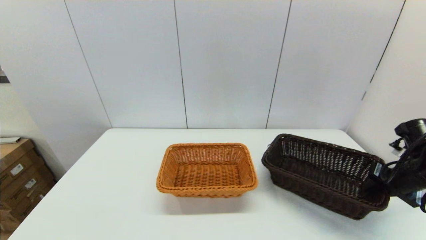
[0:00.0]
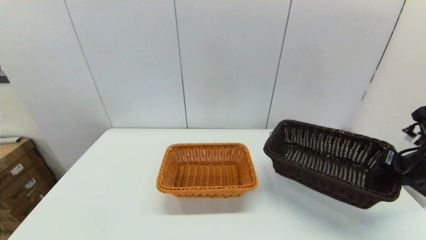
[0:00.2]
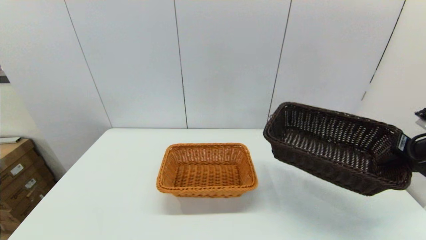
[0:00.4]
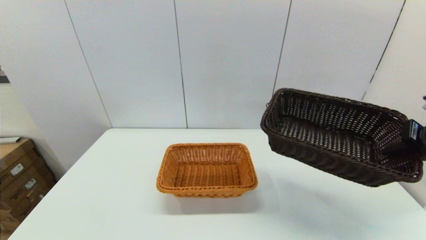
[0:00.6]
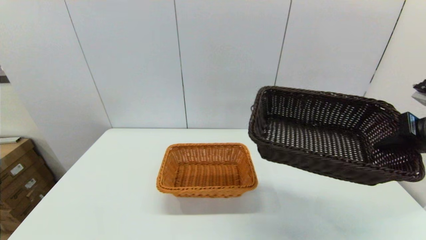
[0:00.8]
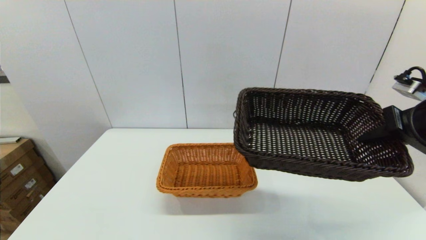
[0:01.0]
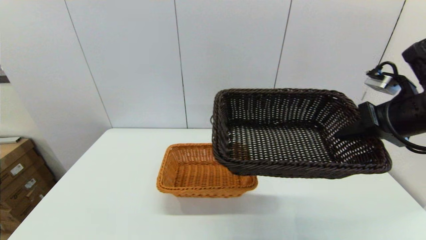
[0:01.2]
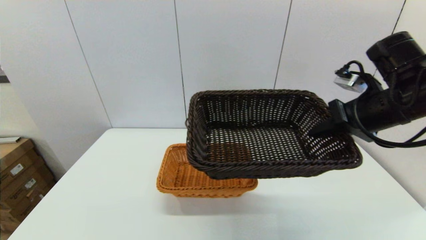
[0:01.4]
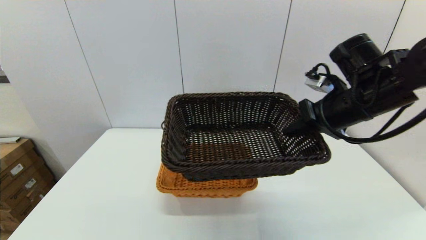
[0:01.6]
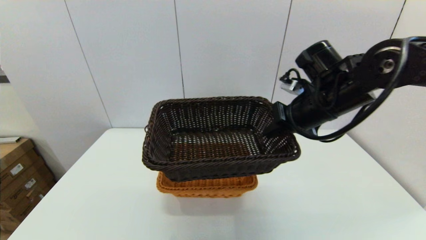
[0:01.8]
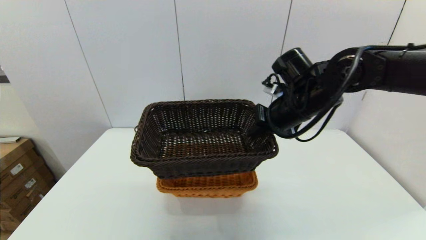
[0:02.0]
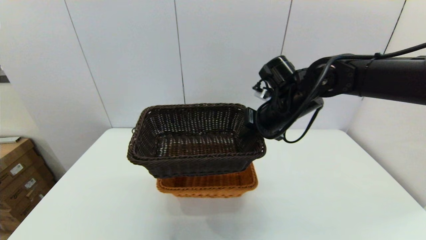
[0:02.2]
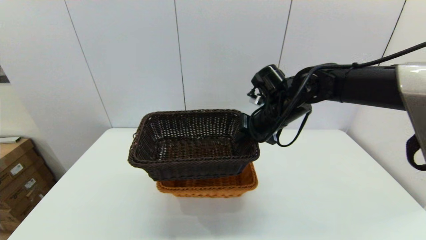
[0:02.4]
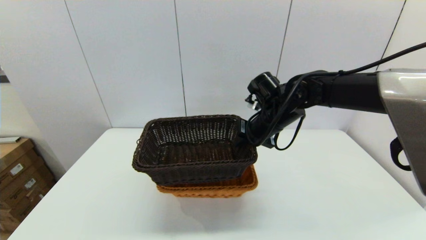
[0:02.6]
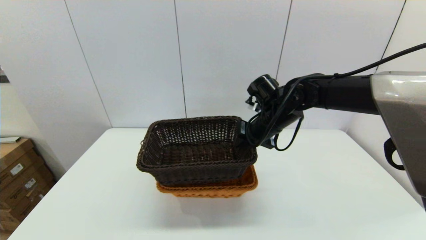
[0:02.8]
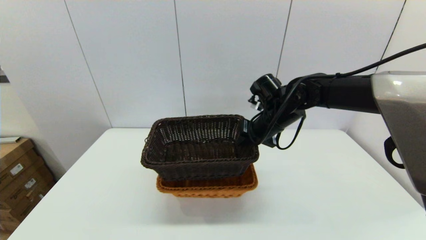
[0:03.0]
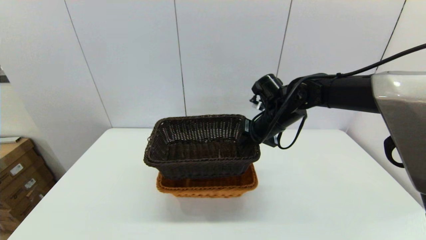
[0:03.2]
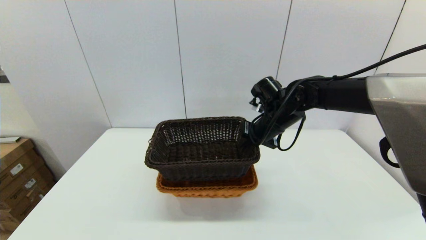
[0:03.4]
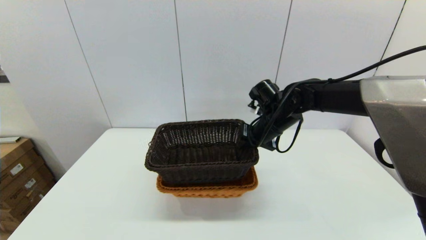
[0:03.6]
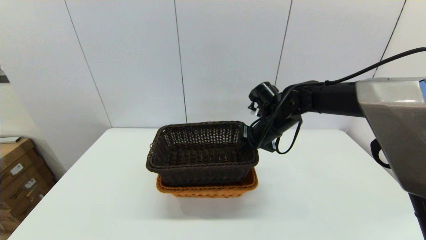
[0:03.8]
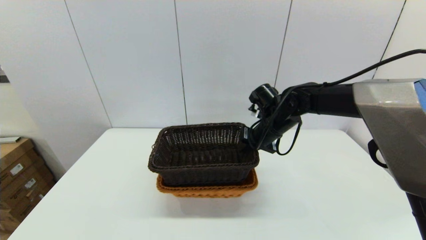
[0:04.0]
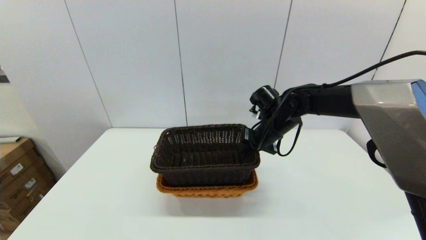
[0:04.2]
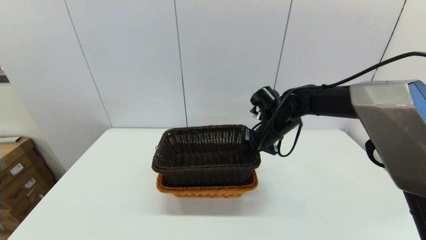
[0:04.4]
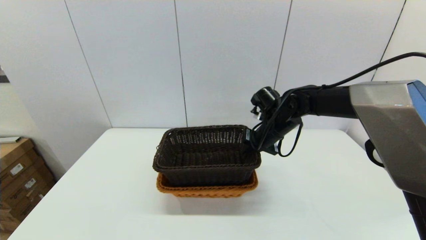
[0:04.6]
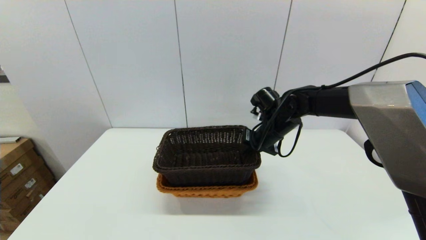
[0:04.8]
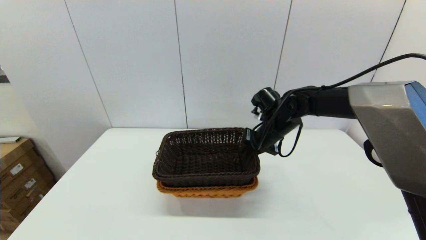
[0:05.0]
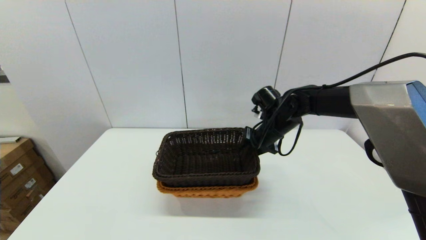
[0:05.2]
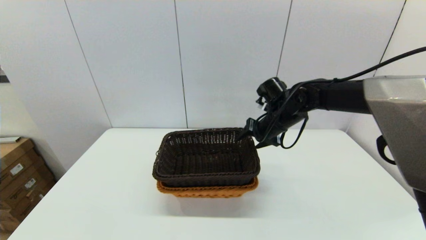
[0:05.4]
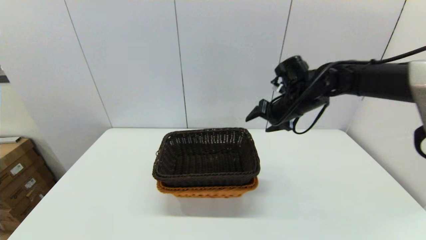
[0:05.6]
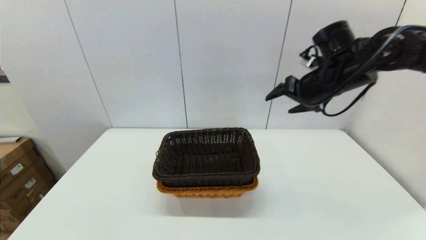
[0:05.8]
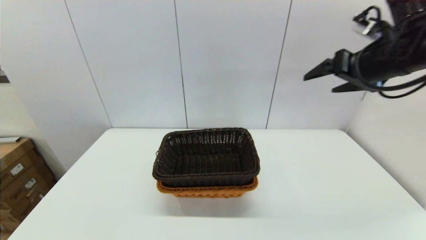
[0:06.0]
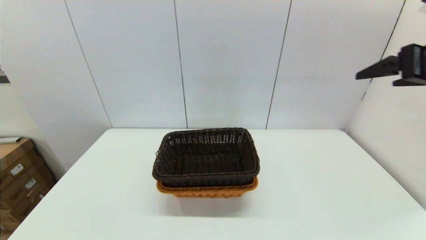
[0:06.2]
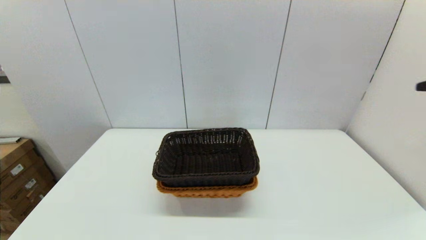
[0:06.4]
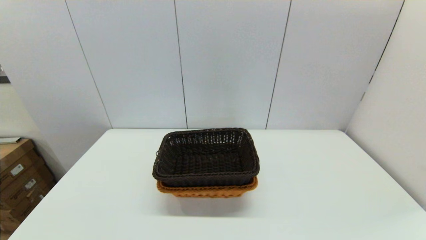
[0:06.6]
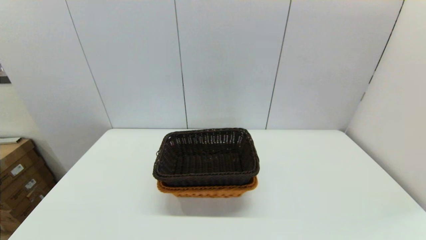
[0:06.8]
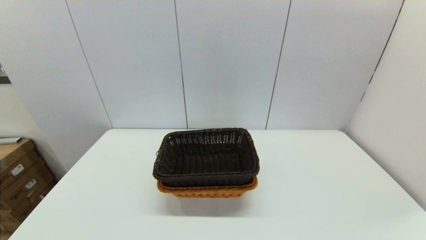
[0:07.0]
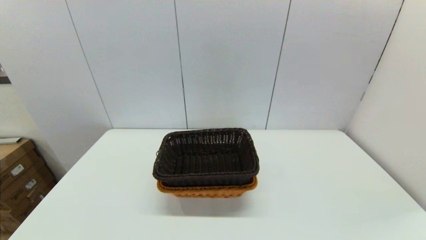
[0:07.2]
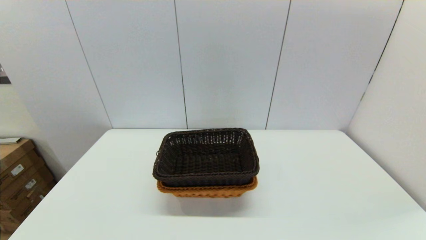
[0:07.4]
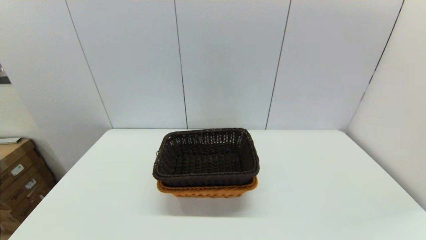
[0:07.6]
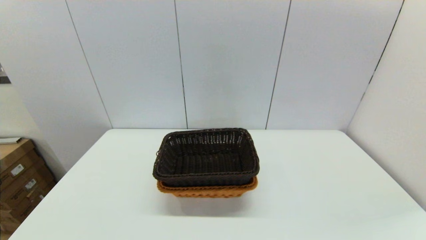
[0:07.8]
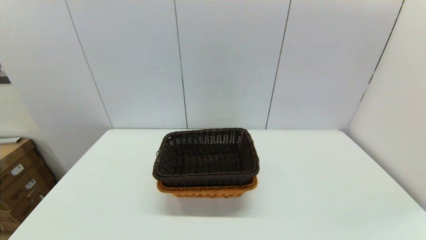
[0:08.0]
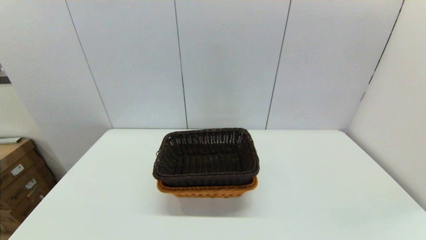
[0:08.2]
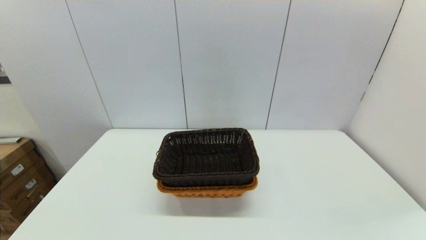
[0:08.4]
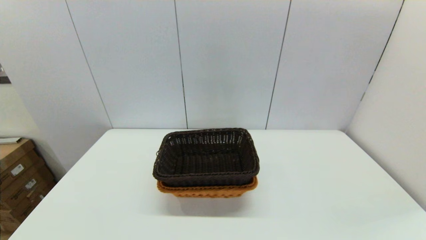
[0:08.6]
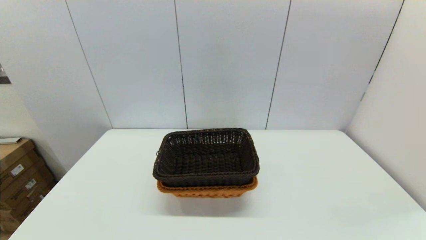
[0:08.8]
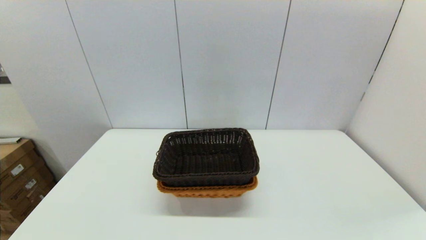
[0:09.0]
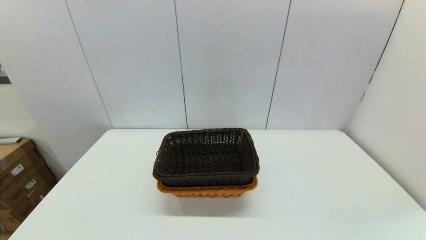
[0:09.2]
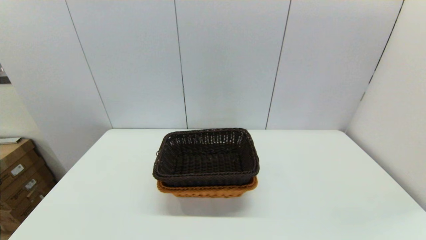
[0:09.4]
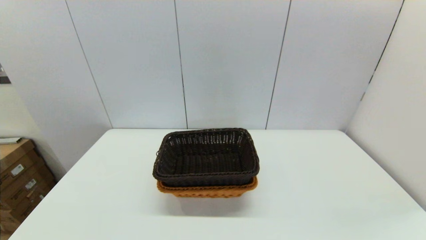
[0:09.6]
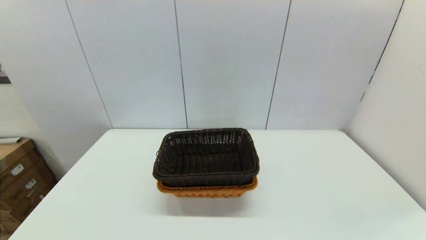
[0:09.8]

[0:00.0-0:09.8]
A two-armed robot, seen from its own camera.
Task of the whole recording: stack a basket on top of another basket.
Step, 0.0 to 5.6 s: Place the dark basket into the light color basket with the right gripper.
0.0 to 1.4 s: The right gripper is displaced upward and to the left by some 20 cm.
1.4 to 2.8 s: The right gripper is displaced to the left, forward and downward by approximately 20 cm.
2.8 to 4.2 s: The grippers move only a little.
4.2 to 5.6 s: The right gripper shifts approximately 5 cm upward, and opens up.
5.6 to 7.0 s: The right gripper heads backward, covering approximately 50 cm.
8.4 to 9.8 s: The two grippers keep their place.

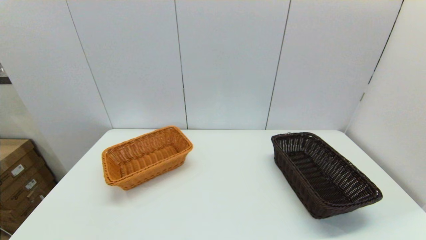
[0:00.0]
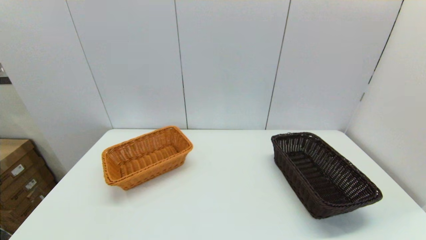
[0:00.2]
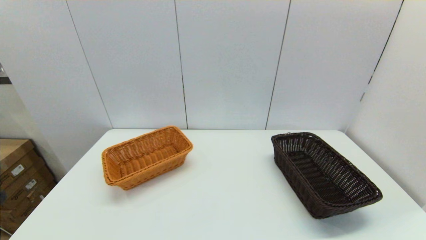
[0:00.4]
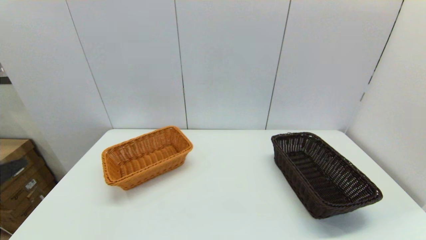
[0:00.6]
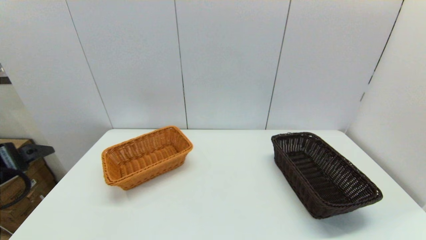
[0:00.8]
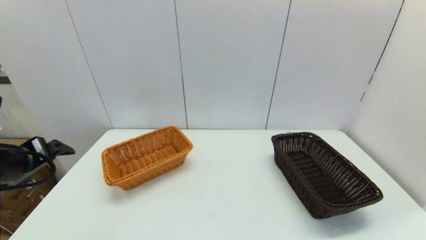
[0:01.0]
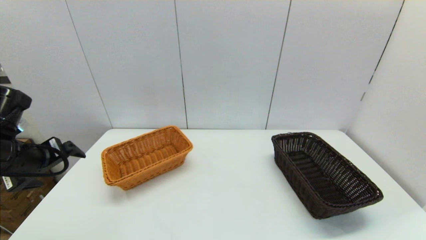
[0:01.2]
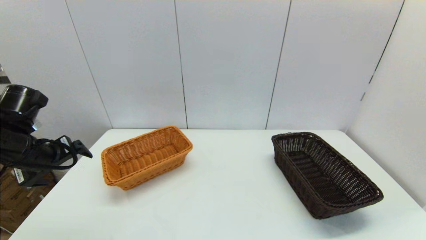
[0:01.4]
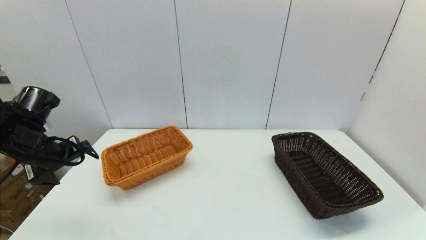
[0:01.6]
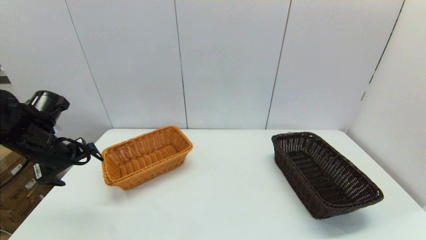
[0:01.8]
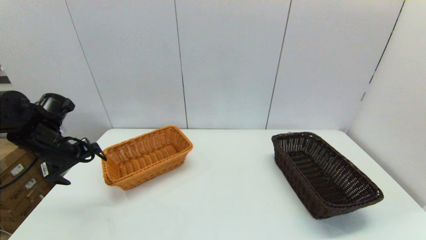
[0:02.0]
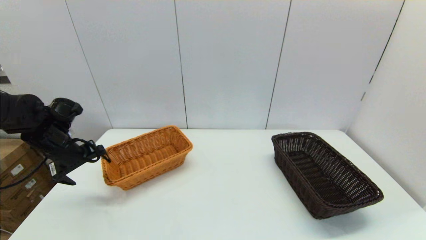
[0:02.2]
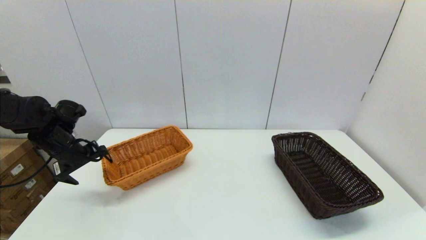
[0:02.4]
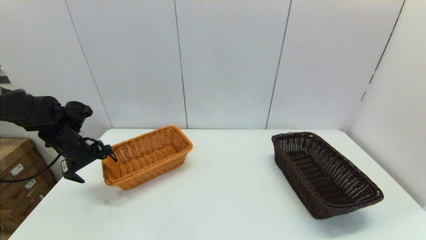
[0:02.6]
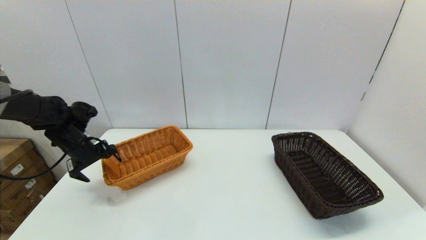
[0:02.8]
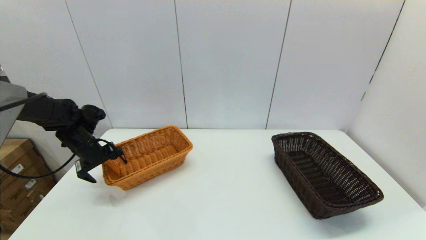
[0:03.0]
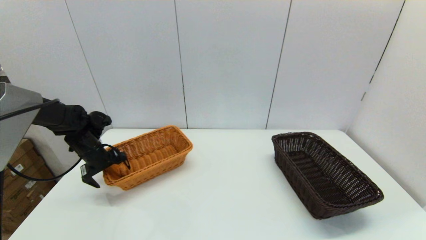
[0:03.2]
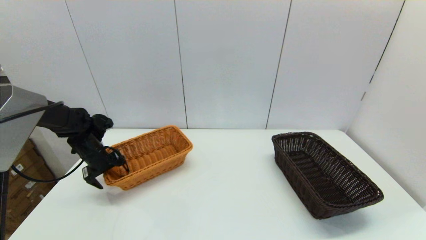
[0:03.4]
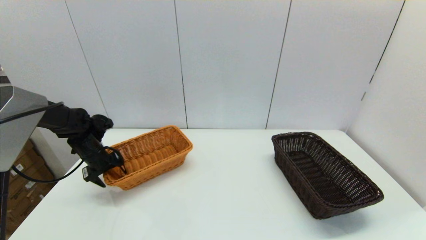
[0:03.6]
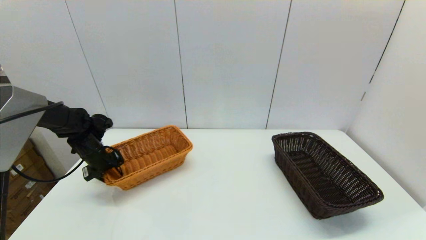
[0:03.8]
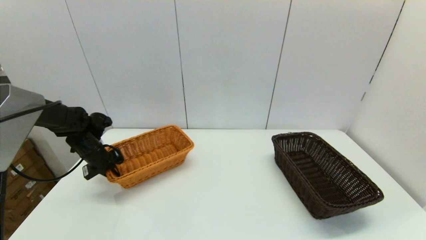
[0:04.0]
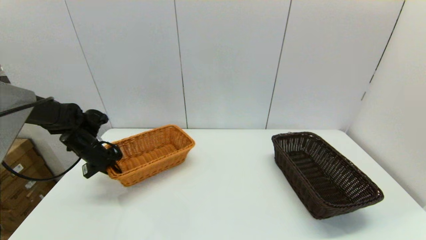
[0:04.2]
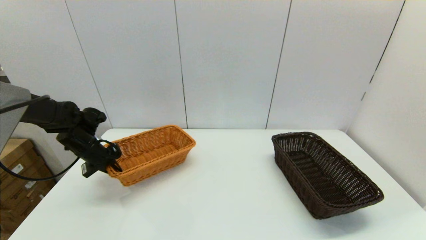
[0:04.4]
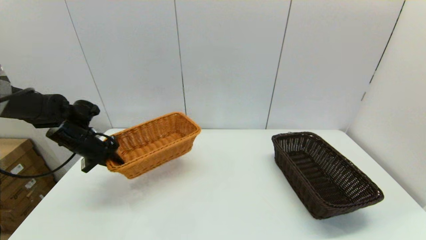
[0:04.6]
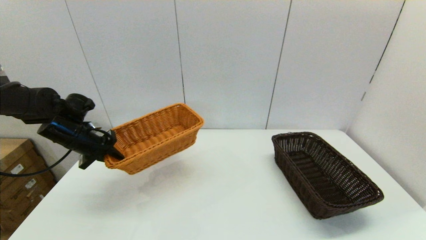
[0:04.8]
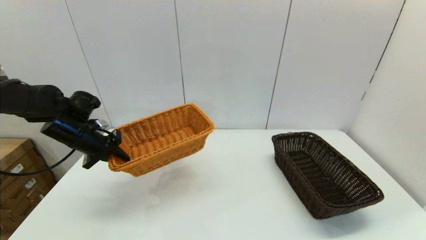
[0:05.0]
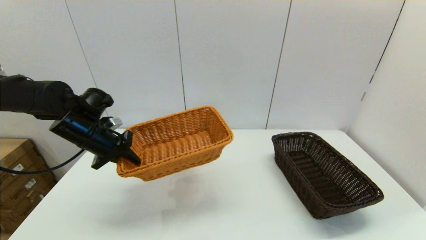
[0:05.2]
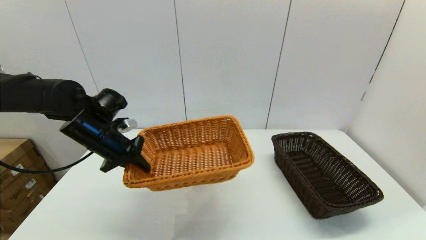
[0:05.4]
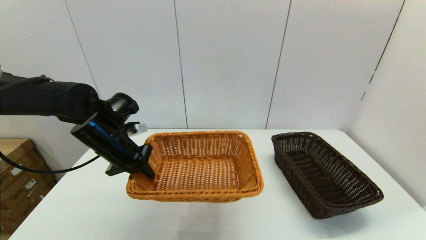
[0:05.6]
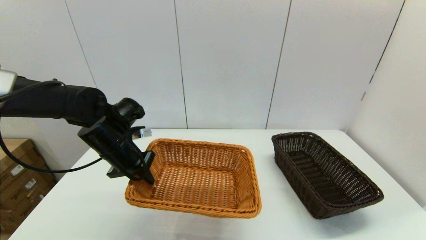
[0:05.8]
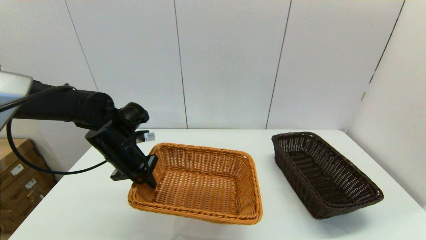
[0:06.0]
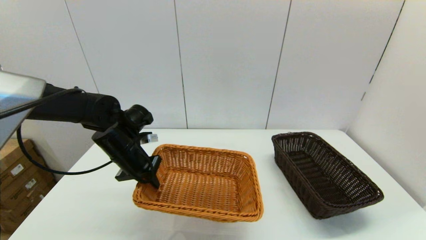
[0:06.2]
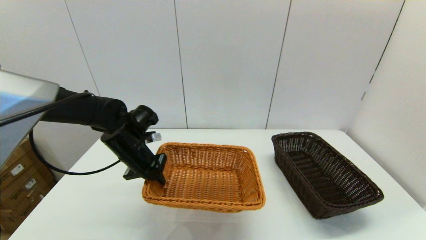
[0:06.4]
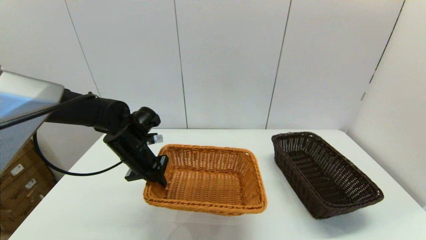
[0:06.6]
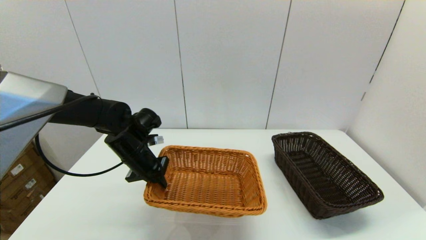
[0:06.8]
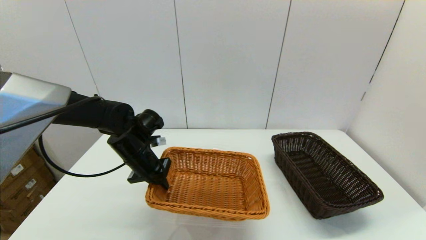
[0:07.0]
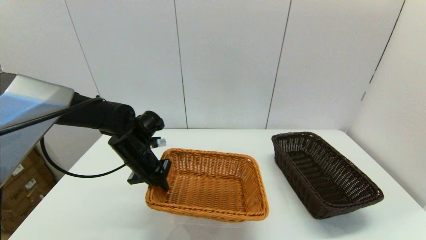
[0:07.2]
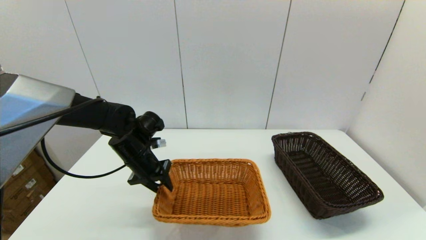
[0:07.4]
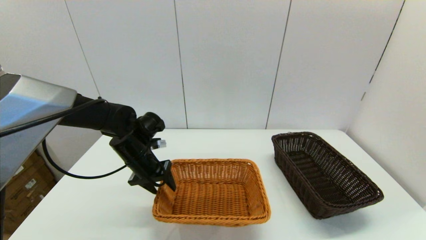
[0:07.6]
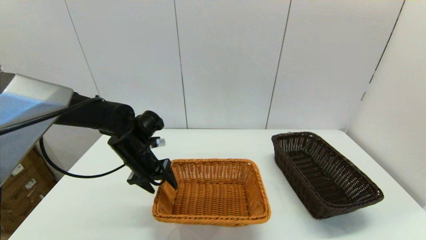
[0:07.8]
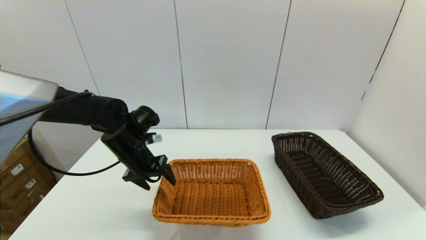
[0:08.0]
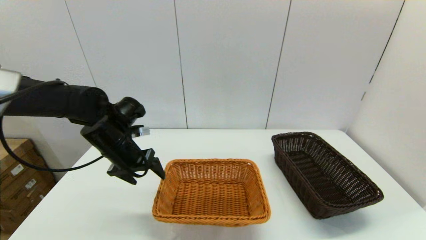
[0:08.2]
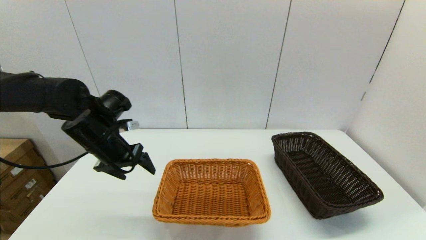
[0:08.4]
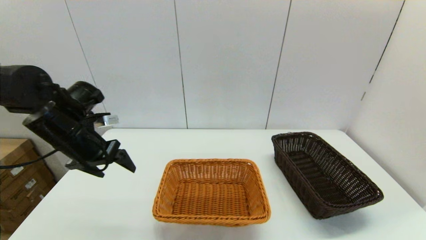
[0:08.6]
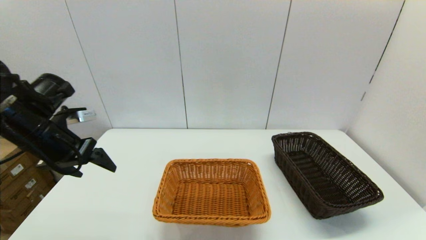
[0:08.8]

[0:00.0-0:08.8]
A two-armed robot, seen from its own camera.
Task of the whole recording: stack a basket on top of another basket.
Step, 0.0 to 4.0 s: Grasp the light basket with the left gripper.
Step, 4.4 to 8.0 s: Place the light basket on the middle of the table with the left gripper.
0.0 to 1.4 s: The left gripper heads forward, covering approximately 25 cm.
1.4 to 3.0 s: The left gripper heads forward and downward, covering roughly 15 cm.
3.0 to 4.4 s: The left gripper closes.
4.4 to 5.8 s: The left gripper shifts roughly 15 cm to the right and backward.
5.8 to 7.4 s: The left gripper changes place by about 5 cm, and opens.
7.4 to 8.8 s: The left gripper moves to the left, upward and backward, about 20 cm, and opens up.
